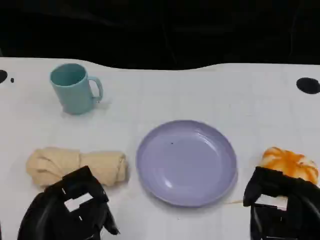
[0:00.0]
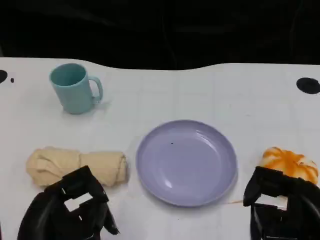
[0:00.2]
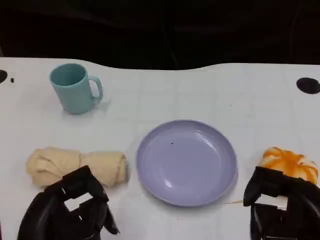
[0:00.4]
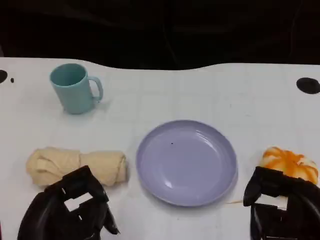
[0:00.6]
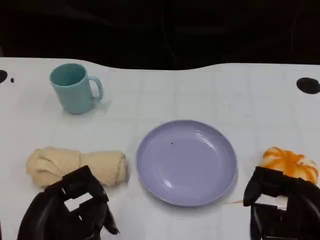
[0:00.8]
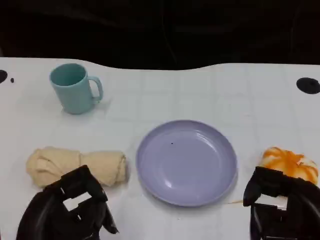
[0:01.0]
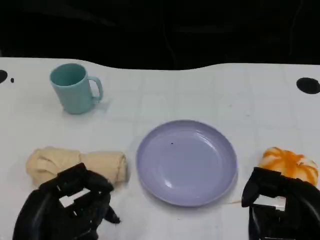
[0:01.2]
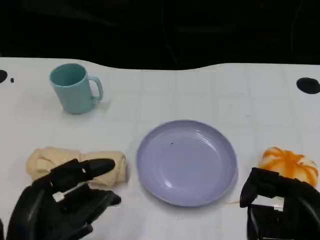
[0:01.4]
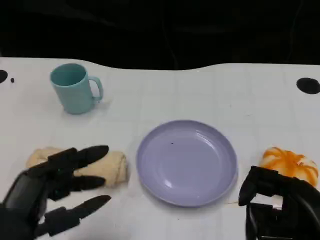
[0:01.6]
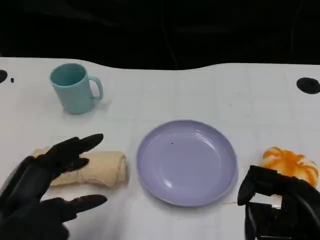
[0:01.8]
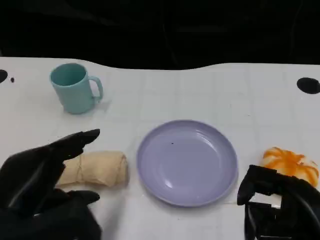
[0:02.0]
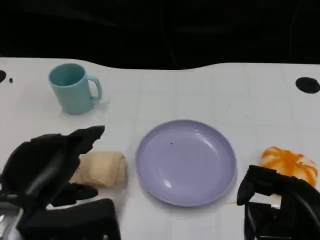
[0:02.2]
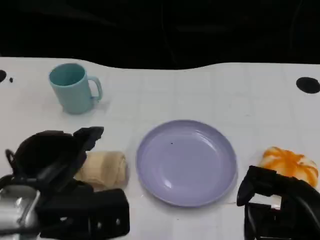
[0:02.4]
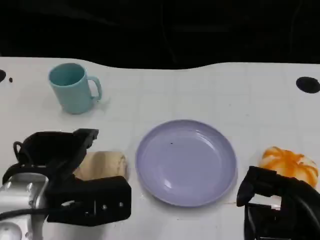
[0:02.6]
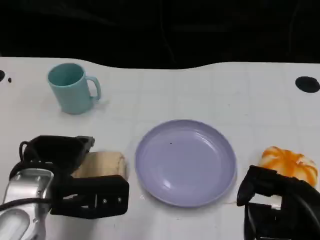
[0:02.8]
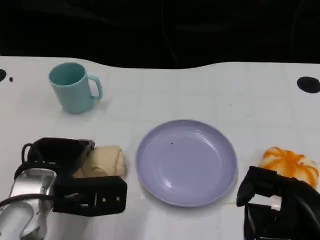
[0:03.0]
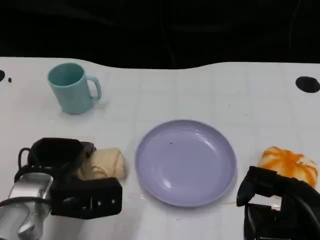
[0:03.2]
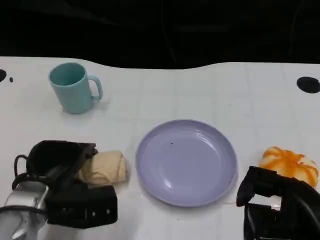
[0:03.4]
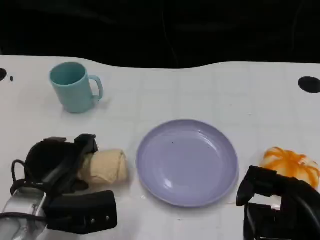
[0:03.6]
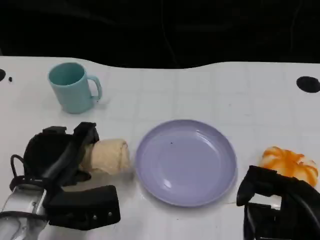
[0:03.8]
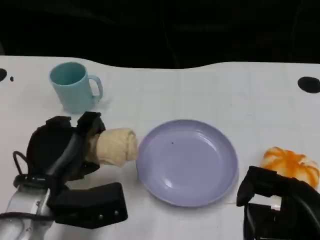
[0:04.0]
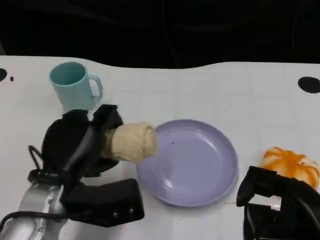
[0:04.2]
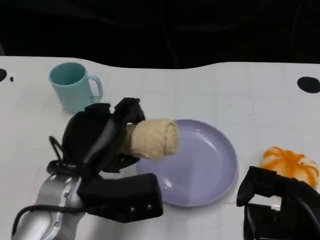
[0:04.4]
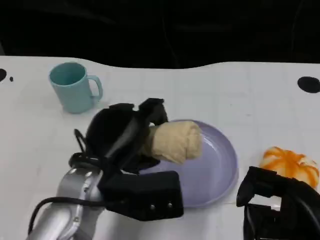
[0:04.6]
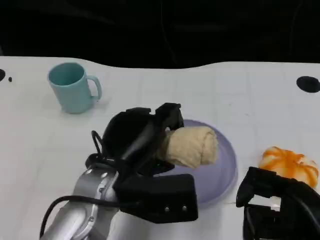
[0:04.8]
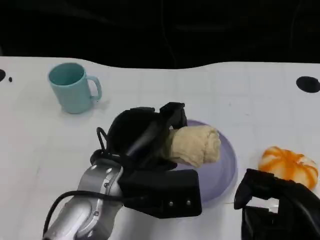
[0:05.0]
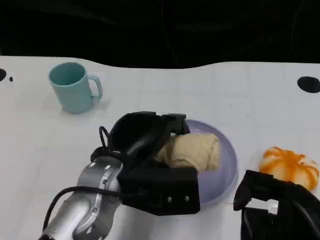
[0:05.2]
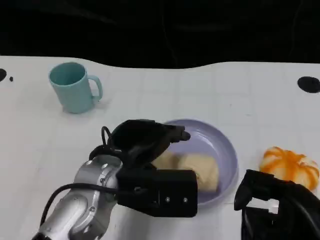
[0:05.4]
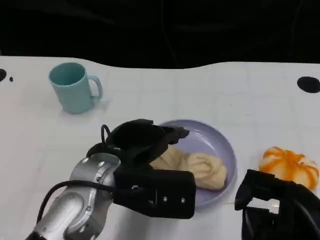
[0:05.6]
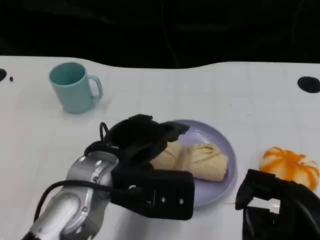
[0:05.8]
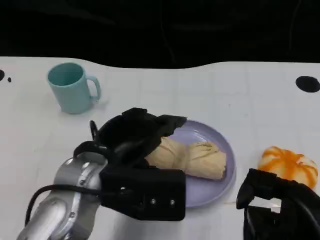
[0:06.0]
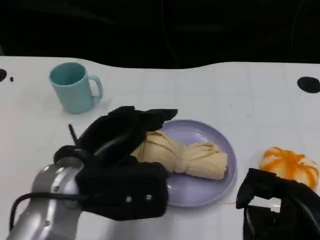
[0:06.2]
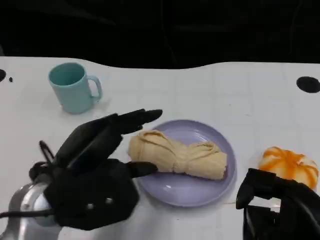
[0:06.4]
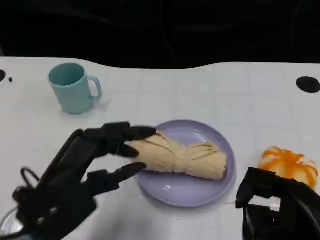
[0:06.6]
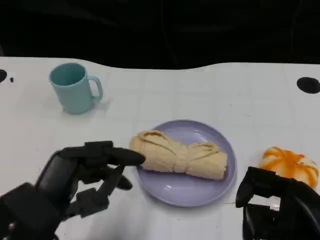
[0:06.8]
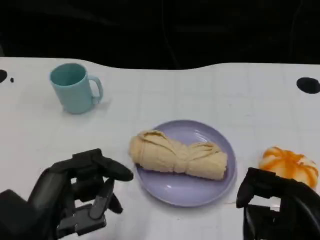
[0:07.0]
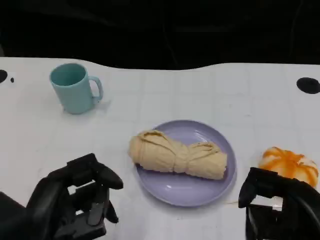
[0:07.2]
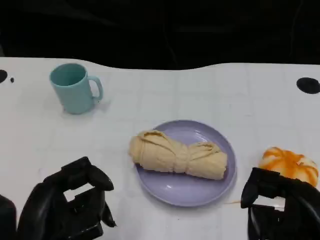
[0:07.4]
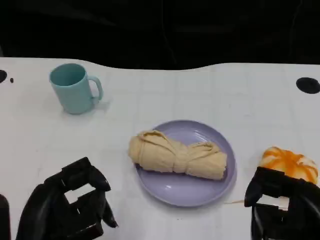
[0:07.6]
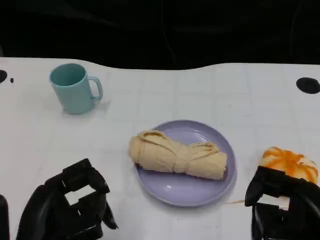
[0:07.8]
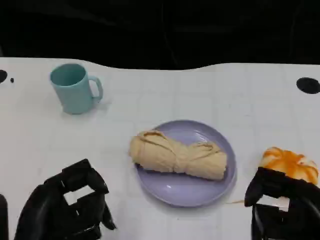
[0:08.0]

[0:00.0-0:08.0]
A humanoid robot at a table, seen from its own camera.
Task of the whole recording: Grasp the towel on the left side of the plate with the left hand and place it into the plate.
0:01.6 to 0:03.2: The left hand shifts approximately 15 cm forward and downward.
0:03.2 to 0:04.8: The left hand is displaced to the right and upward by roughly 10 cm.
0:04.8 to 0:06.4: The left hand shifts some 5 cm to the left.
0:06.4 to 0:08.0: The left hand shifts some 5 cm backward.

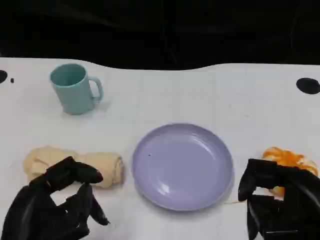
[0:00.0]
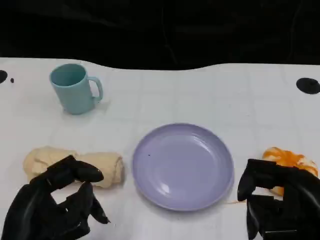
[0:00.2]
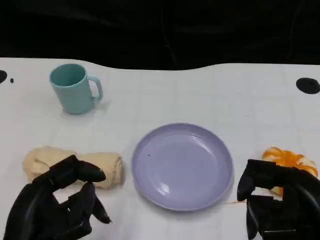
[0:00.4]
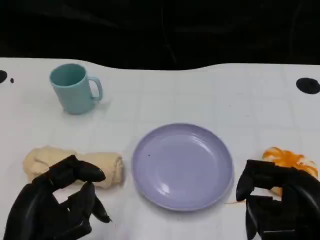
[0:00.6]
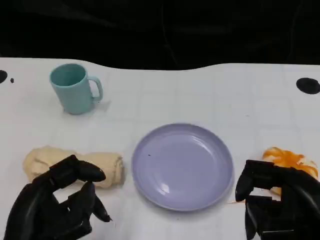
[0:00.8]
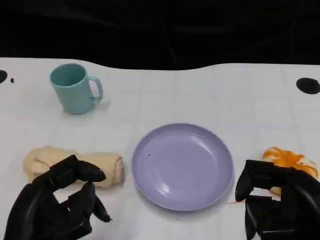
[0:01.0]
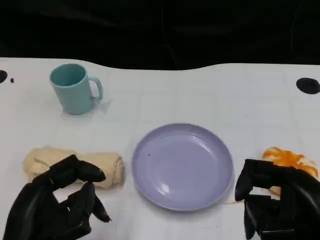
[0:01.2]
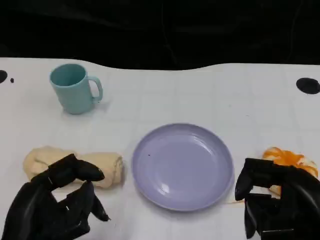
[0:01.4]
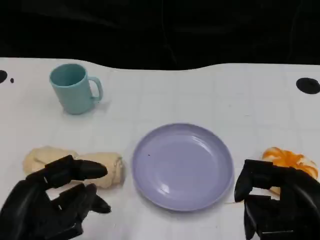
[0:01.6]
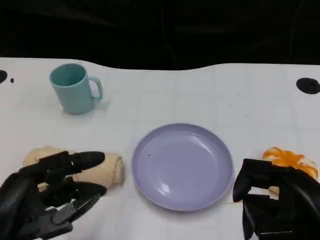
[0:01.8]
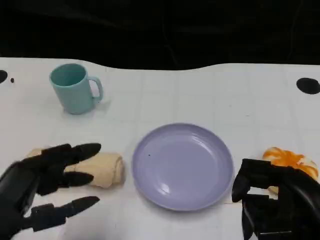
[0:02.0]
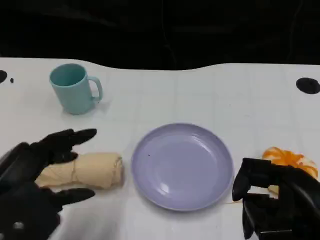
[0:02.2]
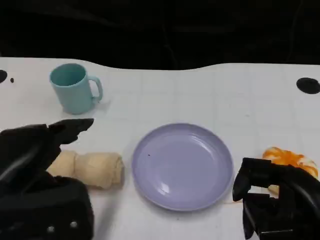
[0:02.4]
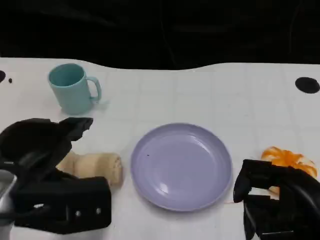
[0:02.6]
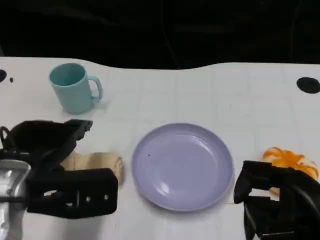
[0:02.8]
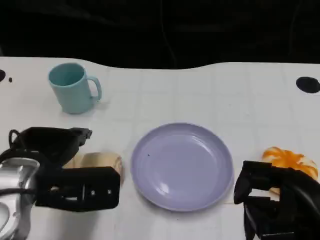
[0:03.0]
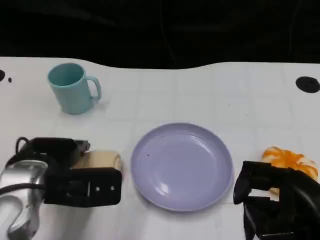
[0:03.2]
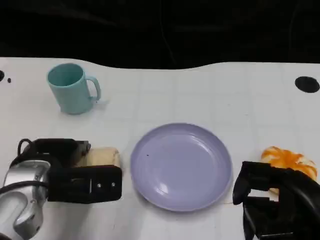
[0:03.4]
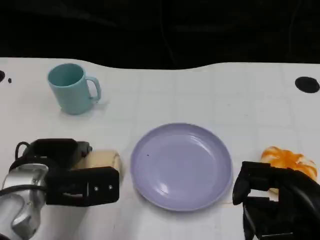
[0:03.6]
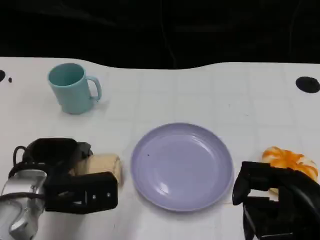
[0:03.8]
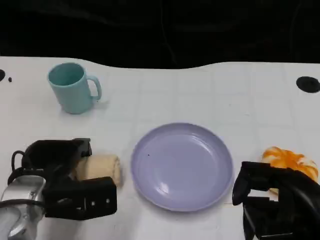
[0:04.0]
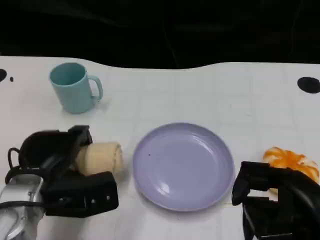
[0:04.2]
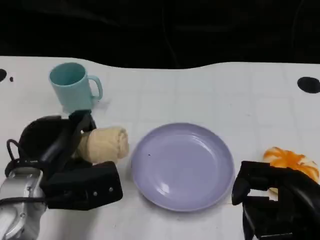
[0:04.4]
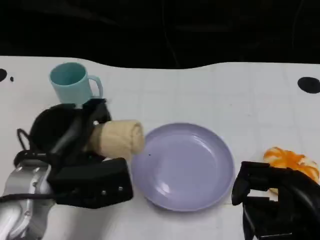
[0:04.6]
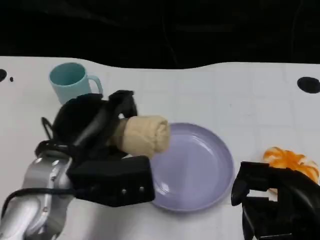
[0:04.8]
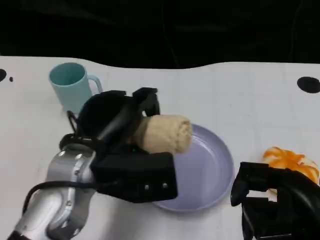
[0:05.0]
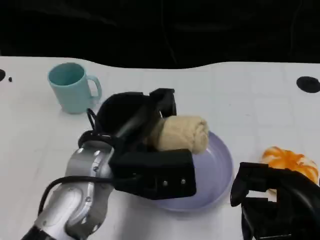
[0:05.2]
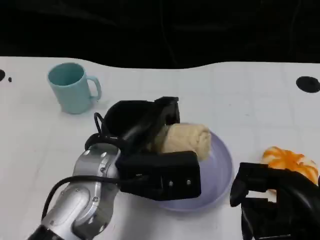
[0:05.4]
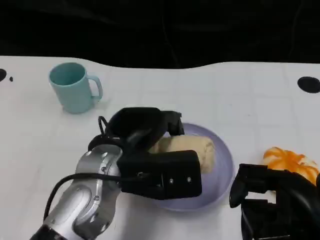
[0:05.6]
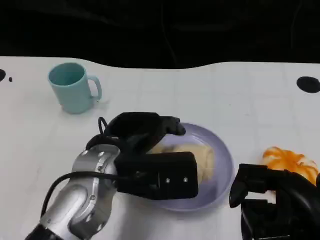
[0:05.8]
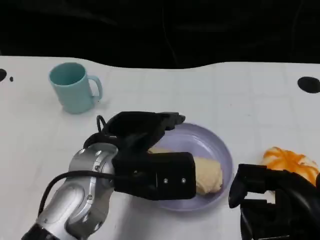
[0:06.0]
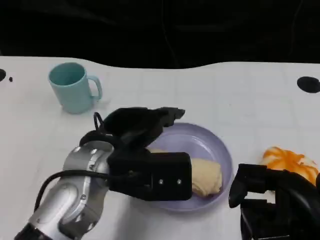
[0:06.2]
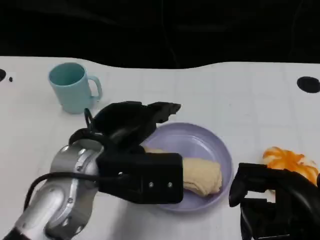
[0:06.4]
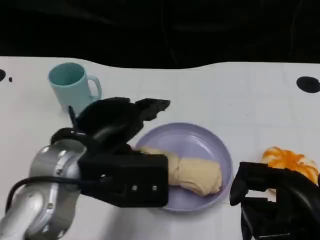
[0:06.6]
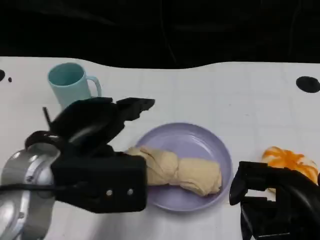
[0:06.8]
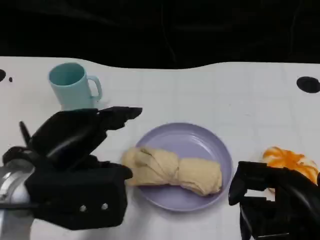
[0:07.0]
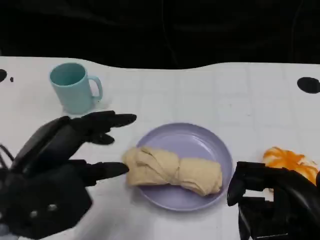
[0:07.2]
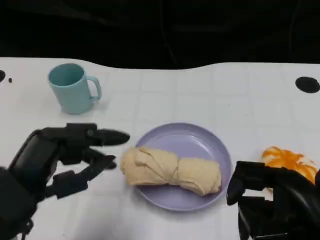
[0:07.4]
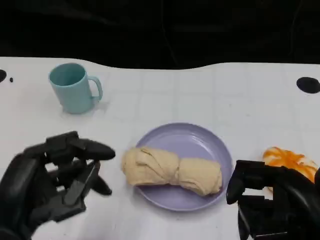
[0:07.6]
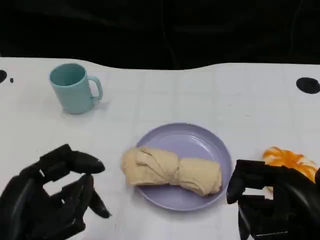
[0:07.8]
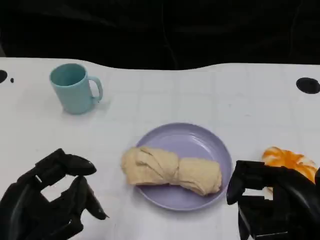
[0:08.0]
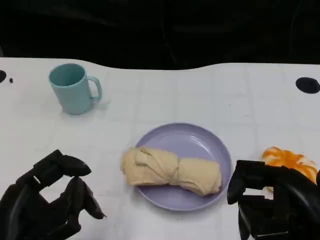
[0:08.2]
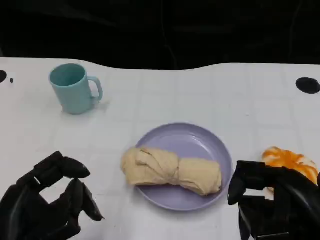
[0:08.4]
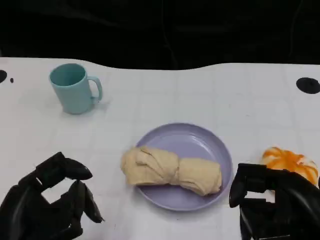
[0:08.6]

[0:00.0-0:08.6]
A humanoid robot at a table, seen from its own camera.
Task of the whole recording: Grasp the towel on the left side of the plate with the left hand and place it into the plate.
0:00.0 to 0:01.4: Both hands stay about where they are.
0:01.4 to 0:02.8: The left hand moves forward, approximately 10 cm.
0:04.4 to 0:05.8: The left hand travels to the right by approximately 10 cm.
0:05.8 to 0:07.2: The left hand heads to the left and backward, covering roughly 15 cm.
0:07.2 to 0:08.6: The left hand travels backward by about 5 cm.

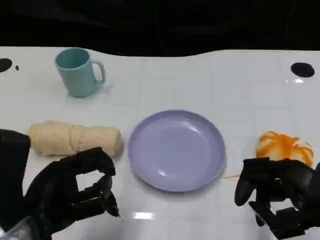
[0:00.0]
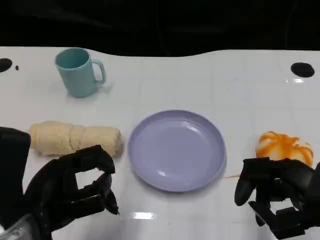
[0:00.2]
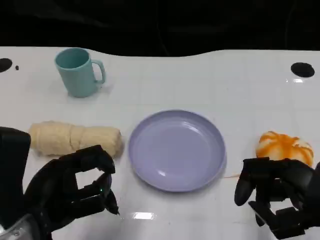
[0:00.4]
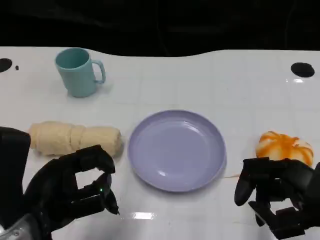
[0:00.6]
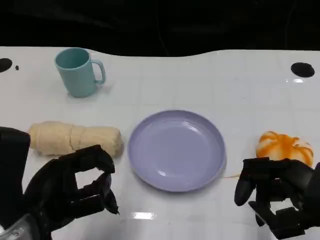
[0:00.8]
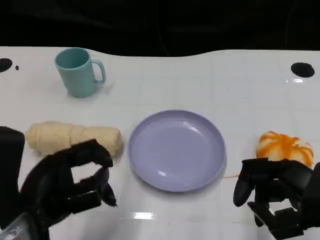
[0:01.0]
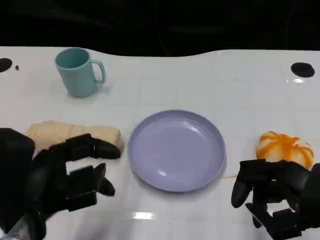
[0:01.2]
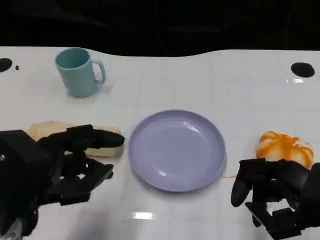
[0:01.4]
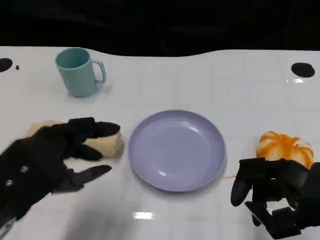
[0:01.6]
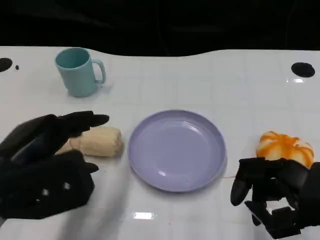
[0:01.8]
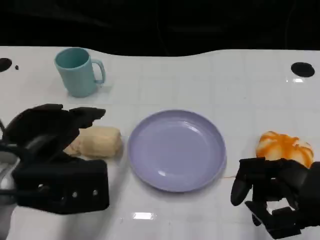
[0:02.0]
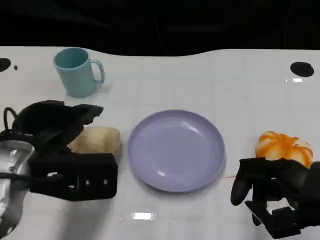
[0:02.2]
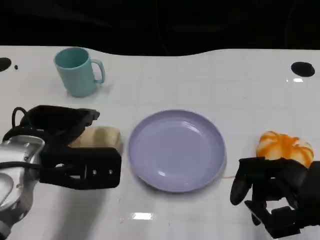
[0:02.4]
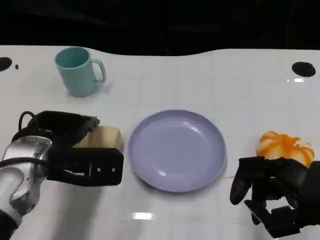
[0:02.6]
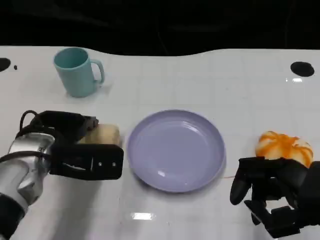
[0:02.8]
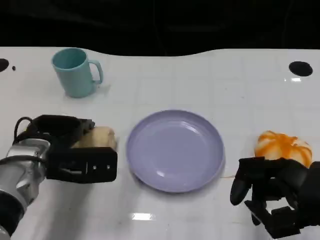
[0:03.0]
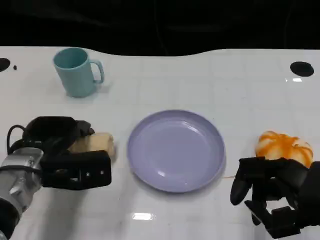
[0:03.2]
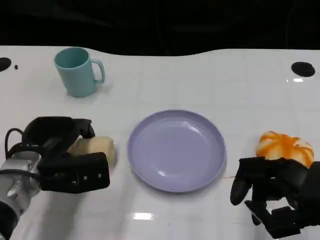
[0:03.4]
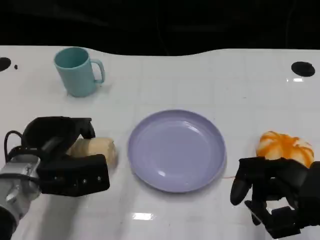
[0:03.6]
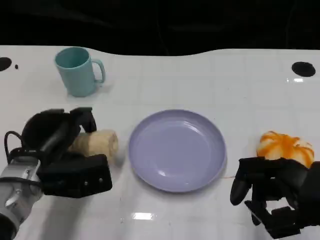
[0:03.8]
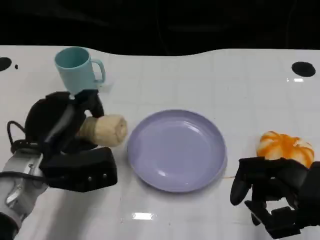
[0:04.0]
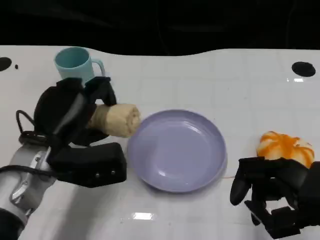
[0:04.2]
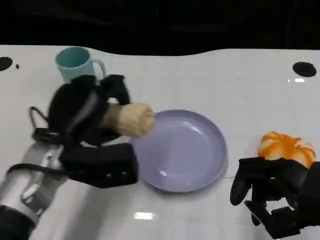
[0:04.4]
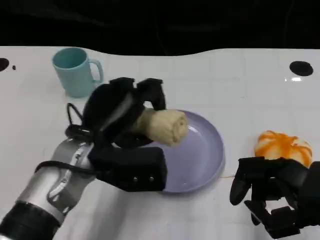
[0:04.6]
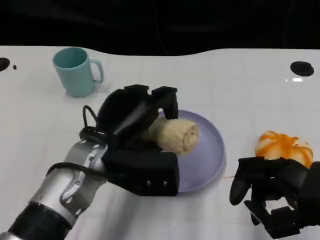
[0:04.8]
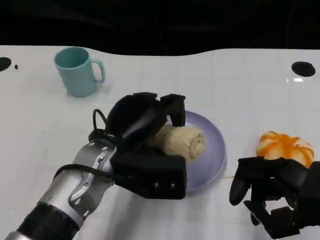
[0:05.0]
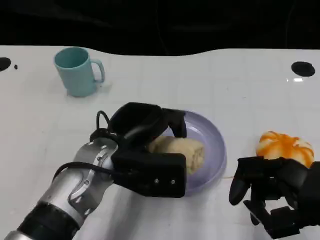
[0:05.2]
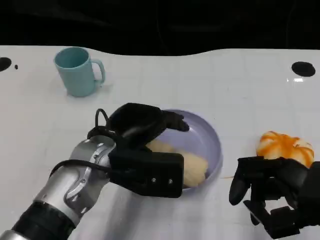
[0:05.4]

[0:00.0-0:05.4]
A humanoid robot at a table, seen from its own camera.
Task of the whole recording: Grasp the towel on the left side of the plate with the left hand and place it into the plate.
0:01.4 to 0:02.8: The left hand travels forward and downward by some 15 cm.
0:04.0 to 0:05.4: The left hand moves to the right, approximately 10 cm.
